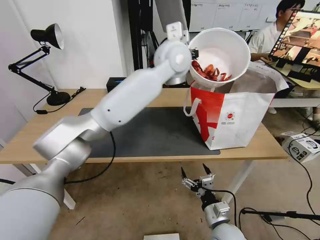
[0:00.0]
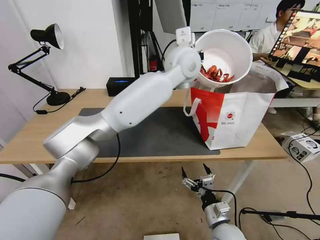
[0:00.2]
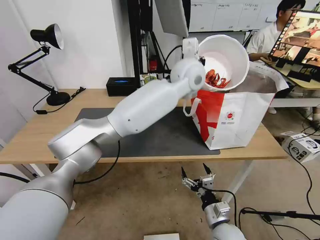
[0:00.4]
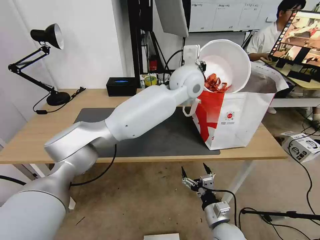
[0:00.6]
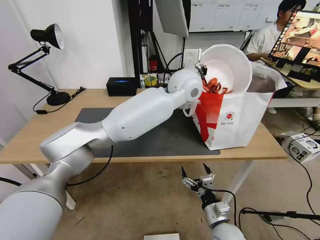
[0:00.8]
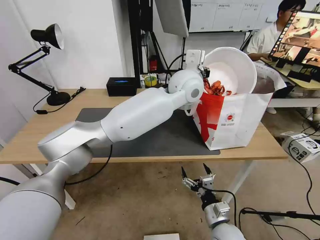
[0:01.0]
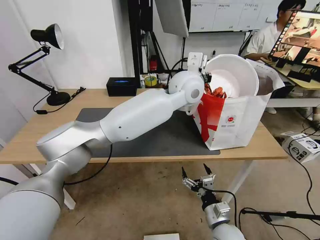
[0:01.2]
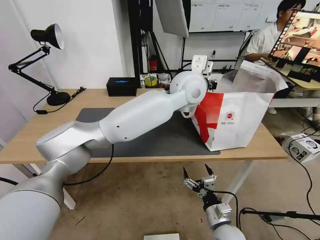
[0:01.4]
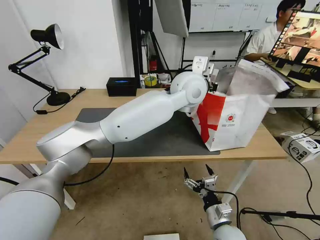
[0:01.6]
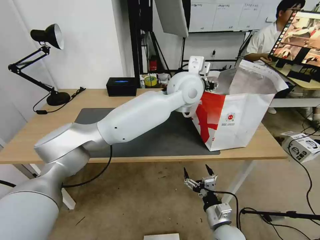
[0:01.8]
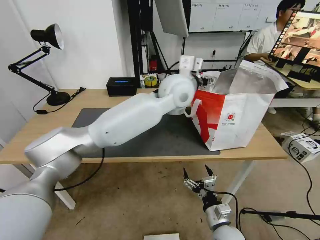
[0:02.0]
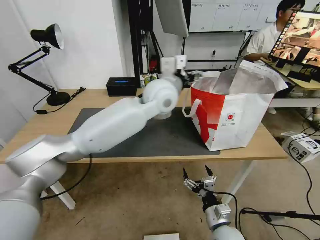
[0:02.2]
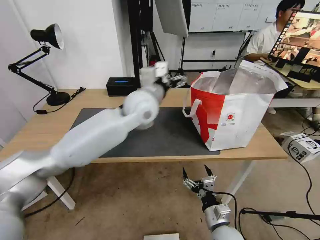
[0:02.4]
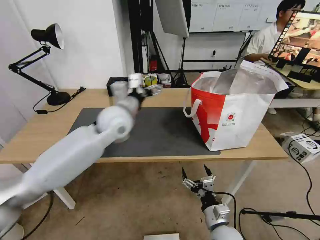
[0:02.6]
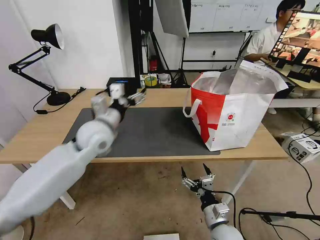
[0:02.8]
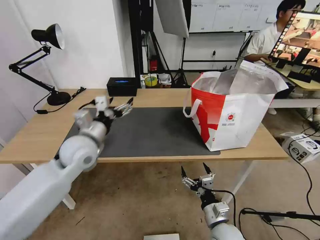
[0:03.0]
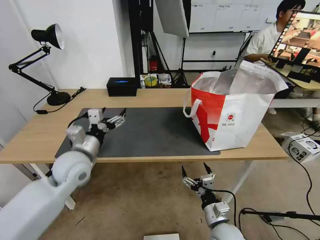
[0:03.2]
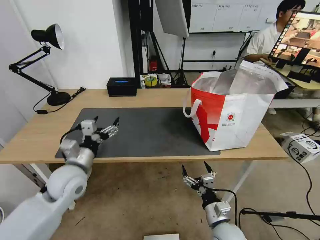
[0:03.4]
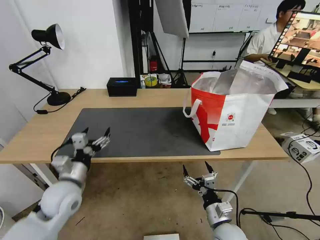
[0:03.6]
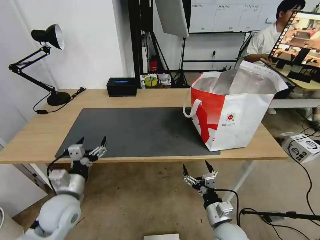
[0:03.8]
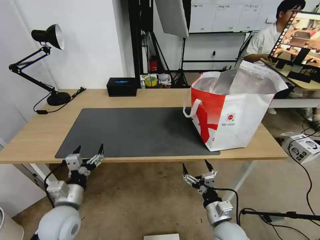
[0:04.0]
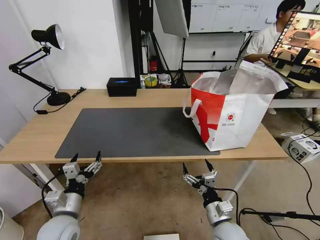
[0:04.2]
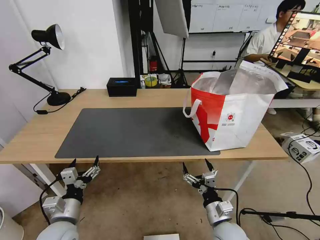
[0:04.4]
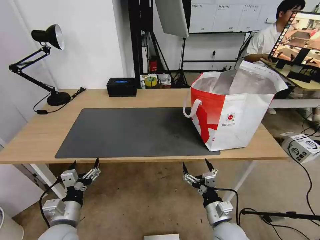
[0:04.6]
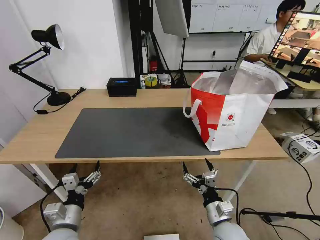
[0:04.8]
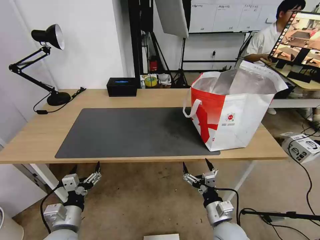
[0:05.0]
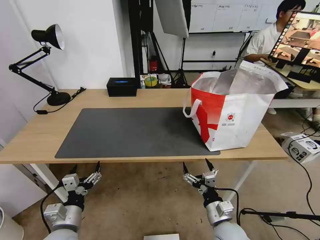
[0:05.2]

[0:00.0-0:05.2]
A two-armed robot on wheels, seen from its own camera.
Task of the whole recording: Pick up the trash from the table and place it into the takeout bag.
0:00.0 to 0:01.8: The left gripper heads downward, covering about 5 cm, and opens its fingers.
0:01.8 to 0:03.4: The left gripper moves to the left, downward and backward, about 40 cm.
0:03.4 to 0:05.2: The left gripper goes roughly 20 cm backward and downward.

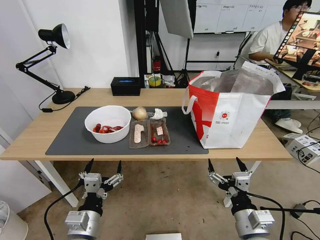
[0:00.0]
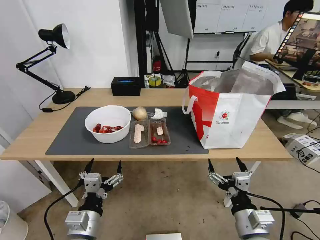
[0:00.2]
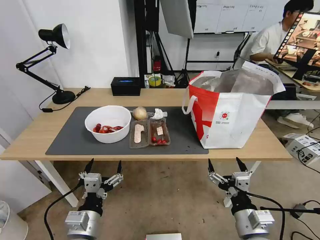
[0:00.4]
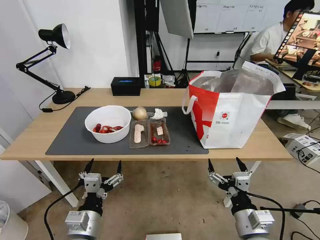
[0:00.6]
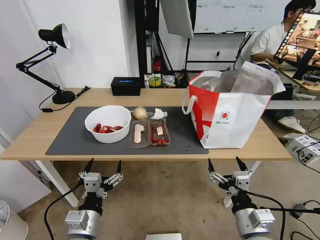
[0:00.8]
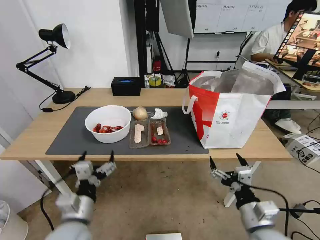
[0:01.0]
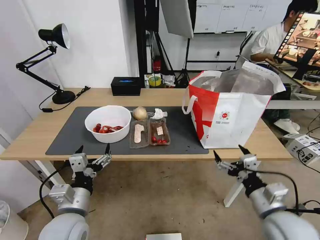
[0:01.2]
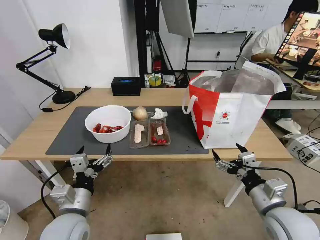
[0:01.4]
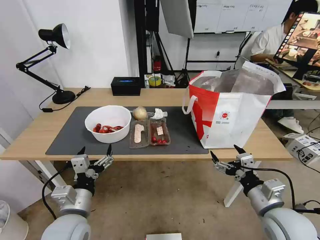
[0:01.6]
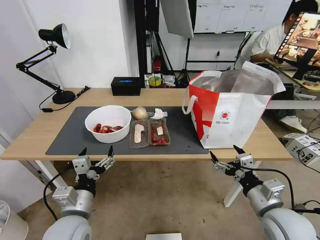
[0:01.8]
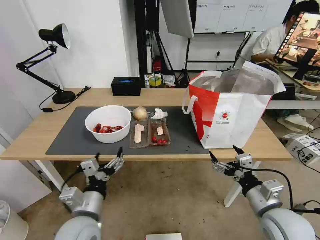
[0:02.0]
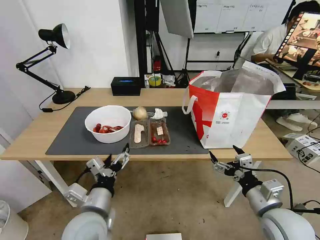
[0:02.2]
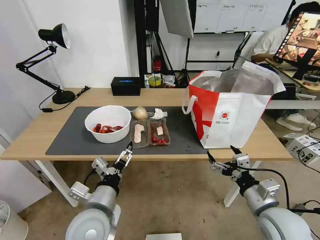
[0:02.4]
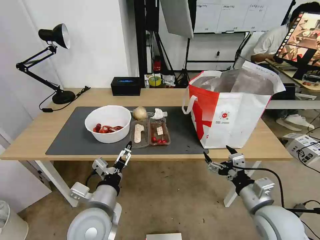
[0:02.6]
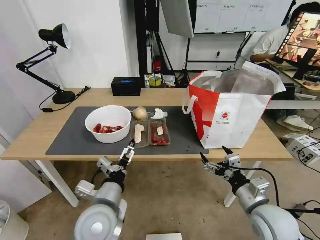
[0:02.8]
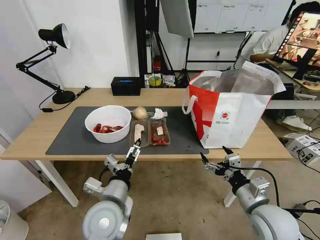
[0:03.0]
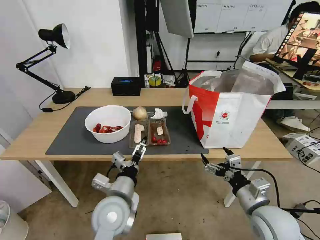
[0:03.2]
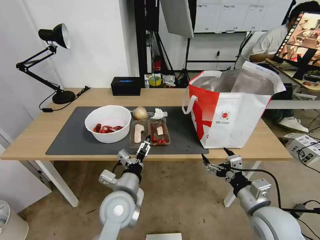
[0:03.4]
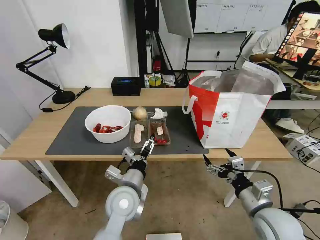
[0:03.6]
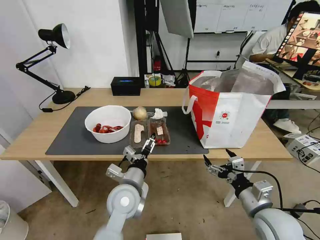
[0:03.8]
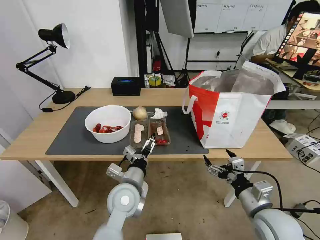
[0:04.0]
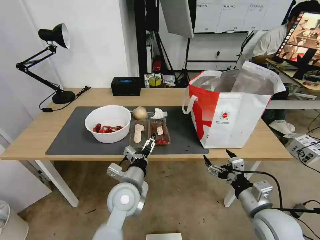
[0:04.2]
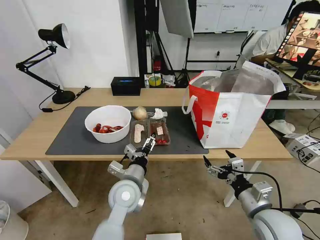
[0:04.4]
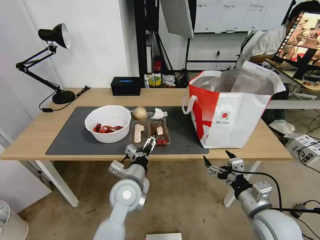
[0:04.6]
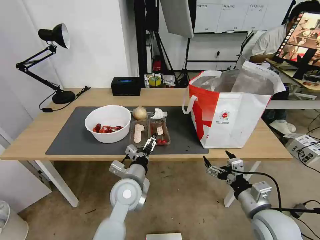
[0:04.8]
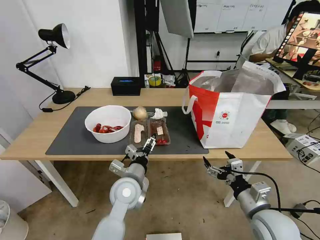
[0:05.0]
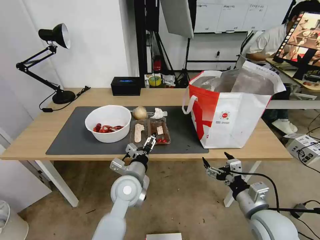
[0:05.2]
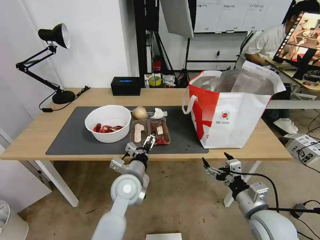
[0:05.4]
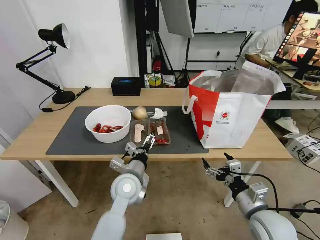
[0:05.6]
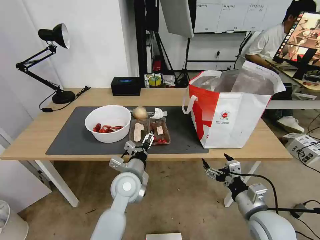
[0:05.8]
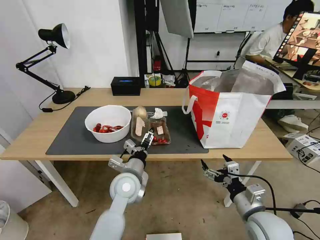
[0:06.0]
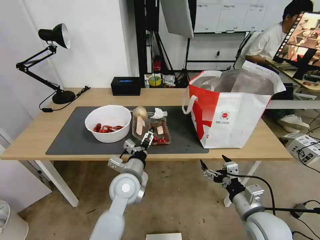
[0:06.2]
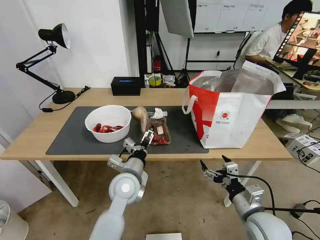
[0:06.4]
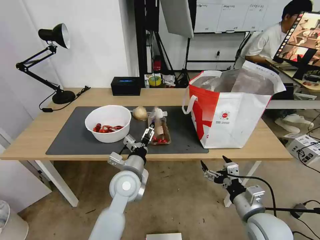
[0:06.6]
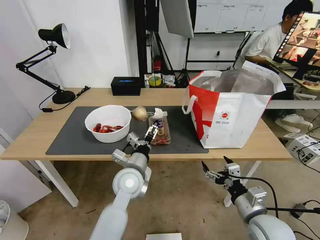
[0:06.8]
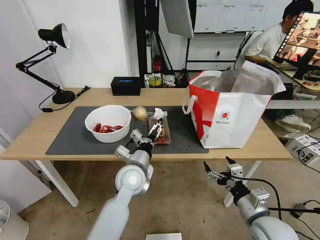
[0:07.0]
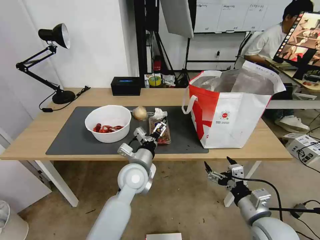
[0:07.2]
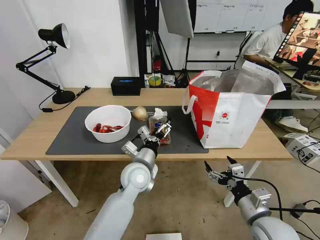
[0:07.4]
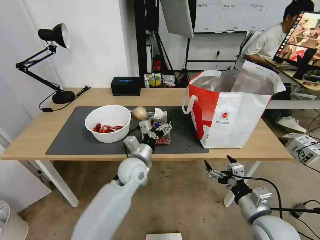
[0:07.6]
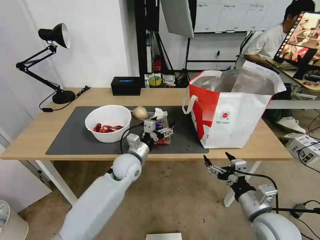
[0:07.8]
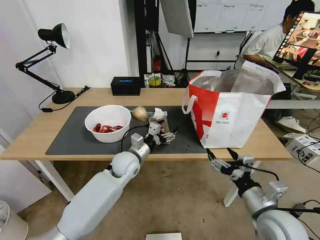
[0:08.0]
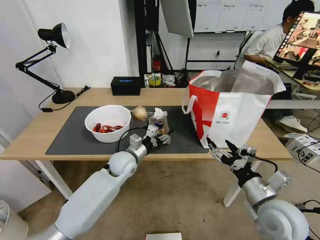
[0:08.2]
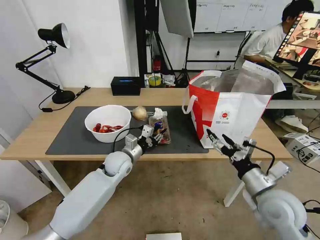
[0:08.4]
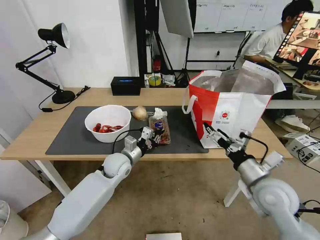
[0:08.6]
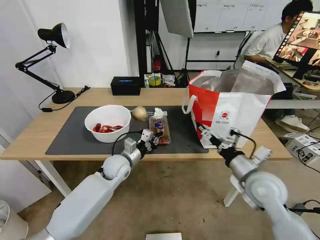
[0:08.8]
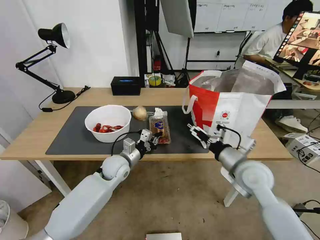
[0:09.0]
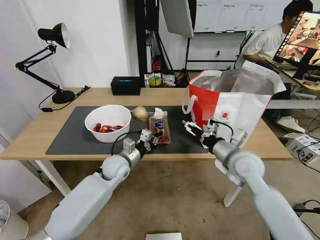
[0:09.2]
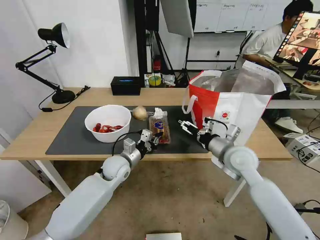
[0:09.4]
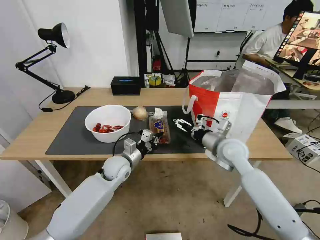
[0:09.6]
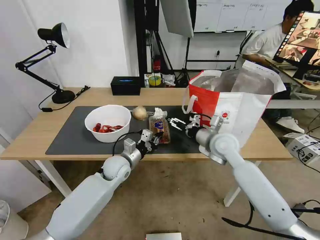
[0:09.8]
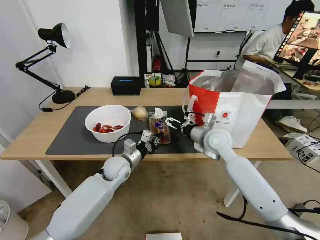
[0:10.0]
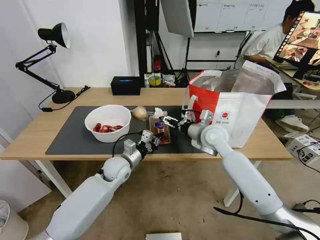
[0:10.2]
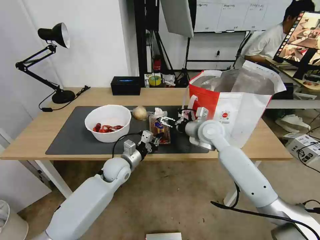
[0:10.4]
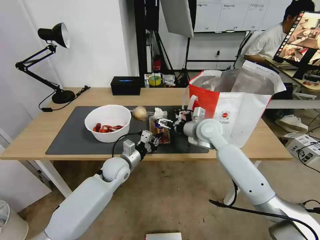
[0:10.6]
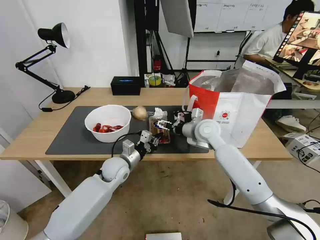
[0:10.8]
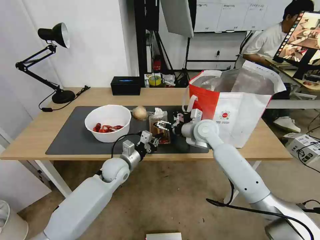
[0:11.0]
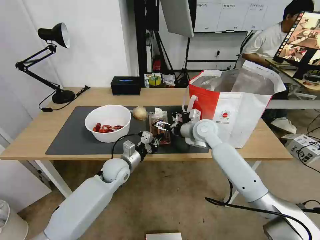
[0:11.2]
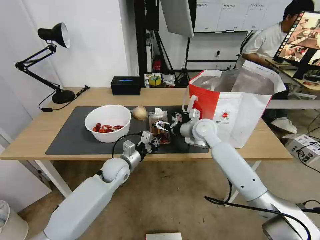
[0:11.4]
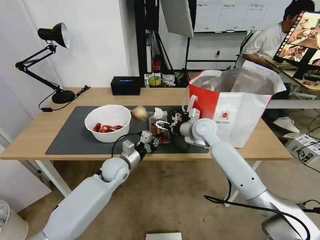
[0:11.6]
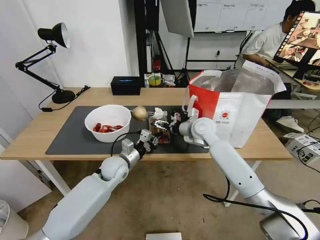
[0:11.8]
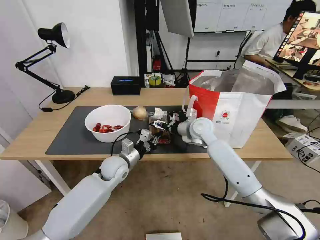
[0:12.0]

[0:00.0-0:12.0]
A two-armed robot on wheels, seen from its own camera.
Task of the whole recording: Pick up the trash from the table and place it into the takeout bag.
0:01.6 to 0:03.0: The left gripper travels to the right by about 10 cm.
0:03.0 to 0:04.4: The left gripper shifts some 5 cm forward.
0:04.4 to 0:06.0: The grippers make only small movements.
0:06.0 to 0:07.6: The left gripper moves forward, approximately 5 cm.
0:07.6 to 0:09.0: The right gripper shifts about 15 cm forward and upward, while the left gripper moves to the left, approximately 5 cm, and closes its fingers.
0:09.0 to 0:10.4: The right gripper shifts about 20 cm forward and to the left.
0:10.4 to 0:12.0: The grippers make only small movements.

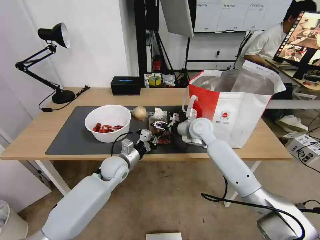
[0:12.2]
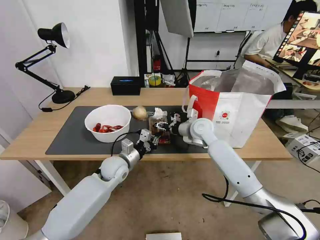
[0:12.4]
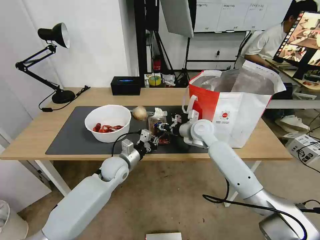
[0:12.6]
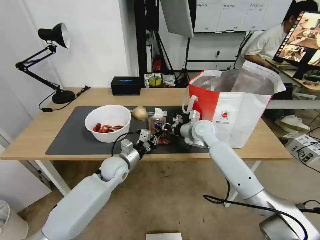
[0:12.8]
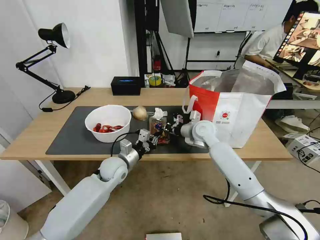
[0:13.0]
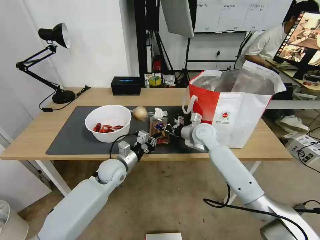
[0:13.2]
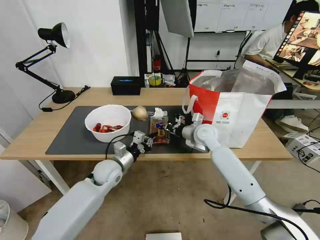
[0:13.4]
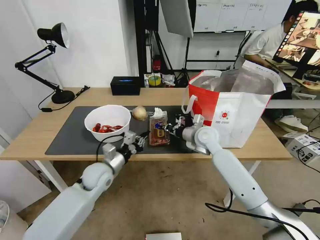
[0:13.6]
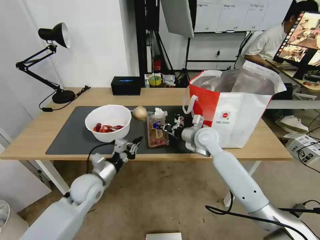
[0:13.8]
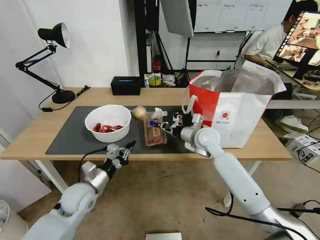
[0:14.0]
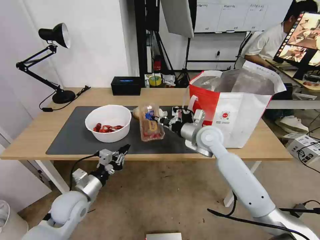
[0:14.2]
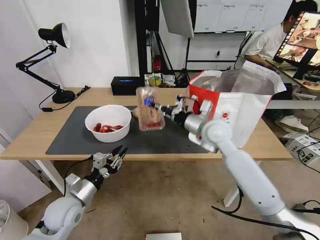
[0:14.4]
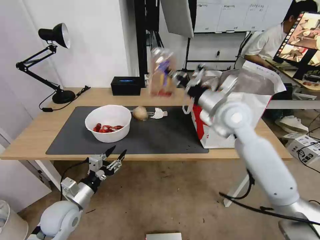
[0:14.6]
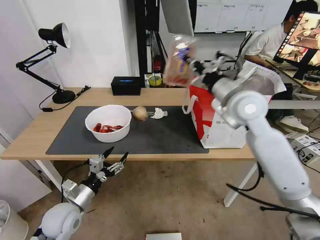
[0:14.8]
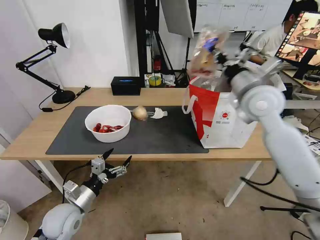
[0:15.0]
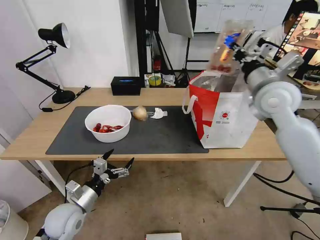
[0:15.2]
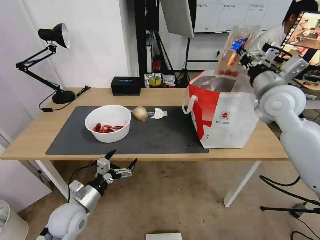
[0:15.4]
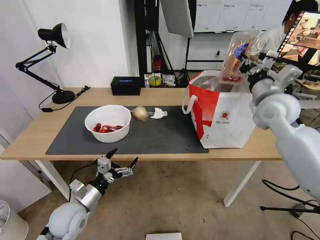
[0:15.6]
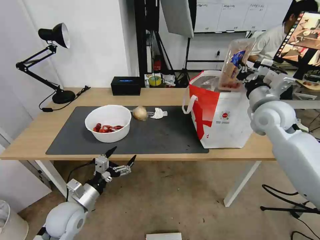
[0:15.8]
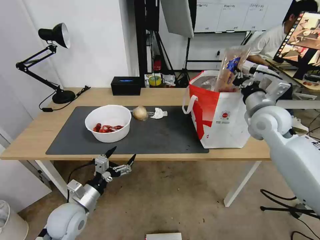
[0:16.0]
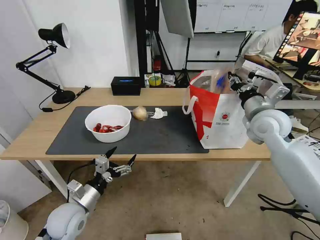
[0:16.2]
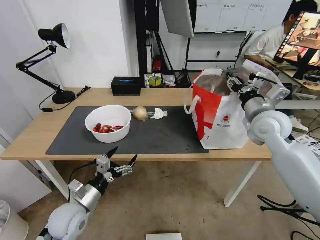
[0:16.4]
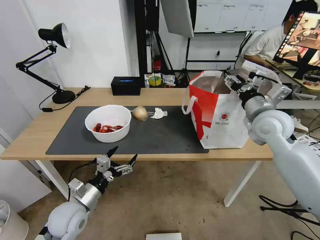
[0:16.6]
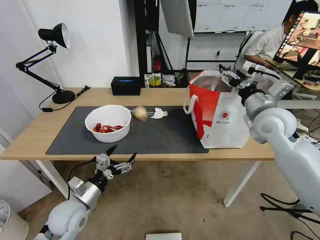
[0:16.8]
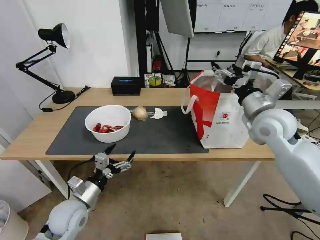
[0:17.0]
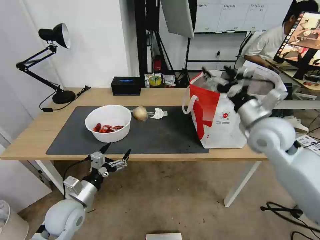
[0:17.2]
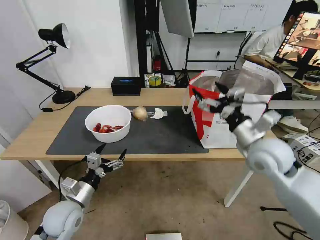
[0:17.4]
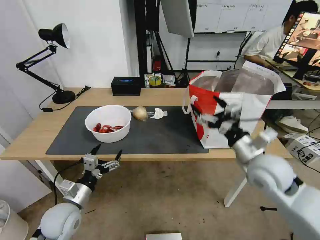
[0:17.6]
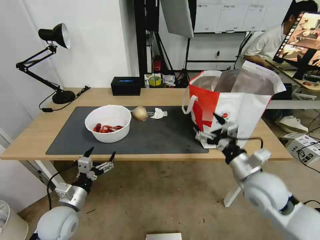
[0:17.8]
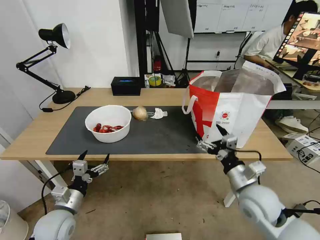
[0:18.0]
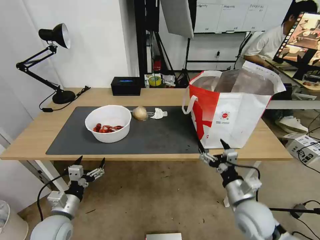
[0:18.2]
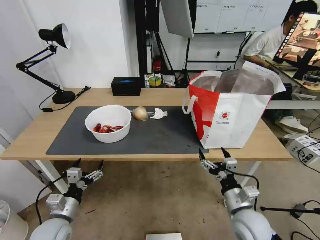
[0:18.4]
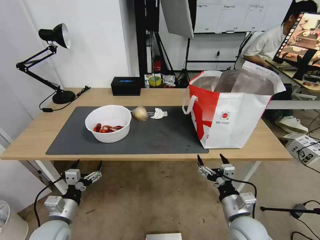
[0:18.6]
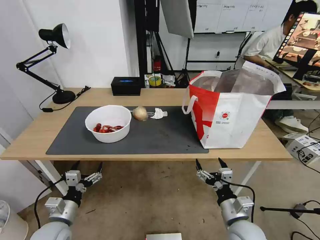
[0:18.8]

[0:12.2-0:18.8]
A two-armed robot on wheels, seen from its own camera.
Task of the whole recording: Pick up the trash from the table and place it into the takeout bag.
0:12.2 to 0:13.8: The right gripper closes up. Meanwhile the left gripper heads backward and to the left, covering some 10 cm.
0:13.8 to 0:15.4: The left gripper travels backward by some 10 cm, and opens, while the right gripper shifts about 25 cm upward and to the right.
0:15.4 to 0:17.2: The right gripper shifts approximately 10 cm backward and downward, and opens its fingers.
0:17.2 to 0:18.8: The left gripper shifts by roughly 10 cm. Meanwhile the right gripper goes about 30 cm downward and backward.
